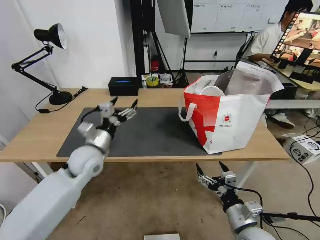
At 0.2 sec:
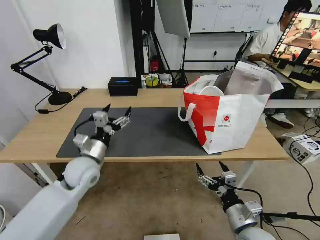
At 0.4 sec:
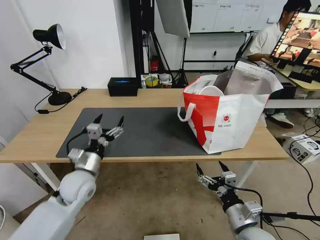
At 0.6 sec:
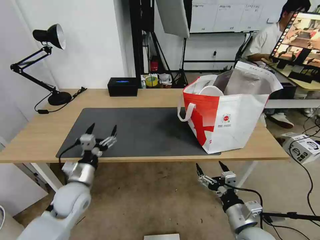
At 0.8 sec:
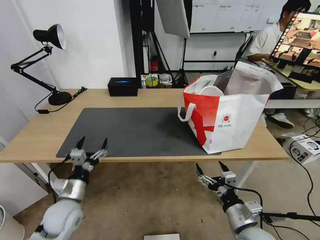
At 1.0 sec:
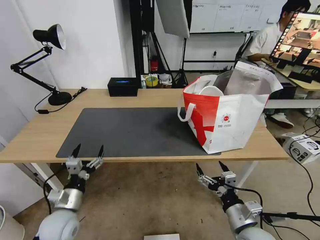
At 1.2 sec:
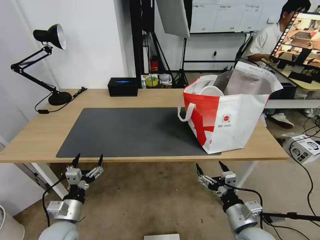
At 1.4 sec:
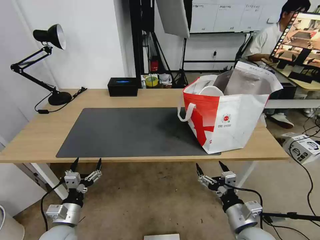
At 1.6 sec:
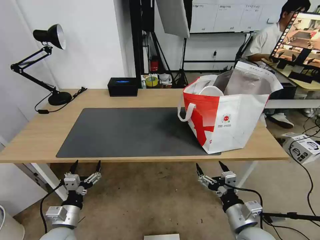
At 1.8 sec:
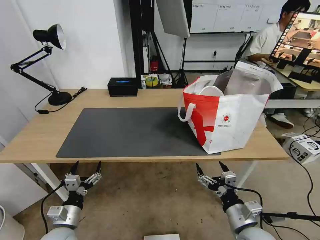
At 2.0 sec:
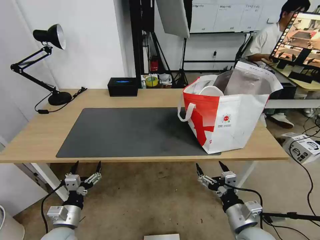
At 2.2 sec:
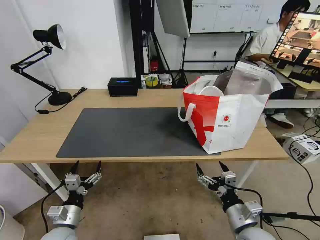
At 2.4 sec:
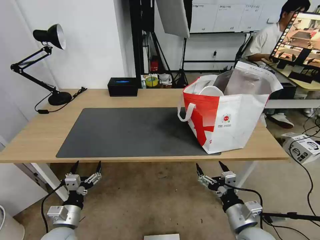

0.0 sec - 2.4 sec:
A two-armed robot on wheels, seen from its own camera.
Task of the whole recording: Pick up the trash from the table and place it into the takeout bag.
0.0 sec - 1.2 sec: The left gripper moves backward, downward and to the left, roughly 25 cm.
1.2 sec - 2.4 sec: The grippers stay close to where they were, moving slightly.
